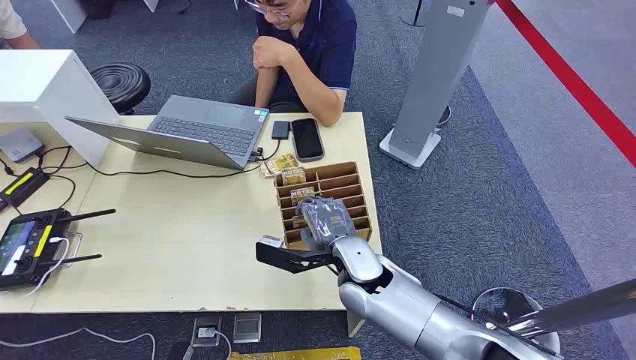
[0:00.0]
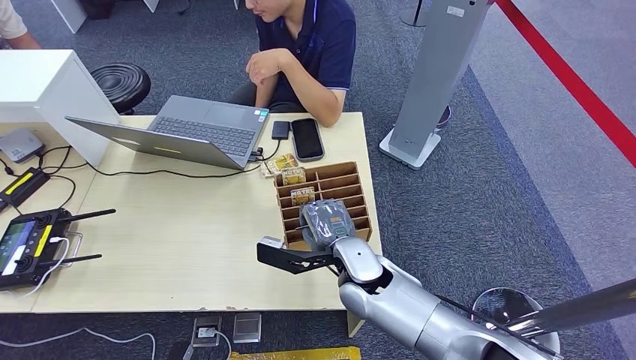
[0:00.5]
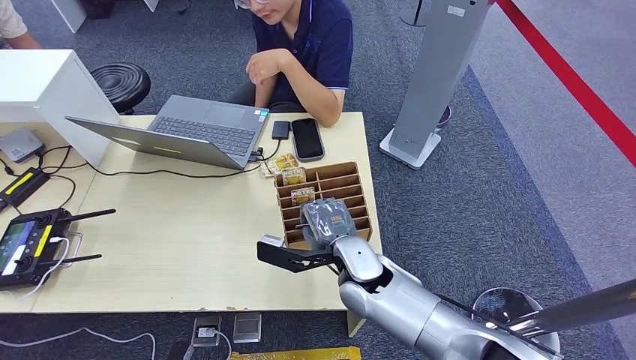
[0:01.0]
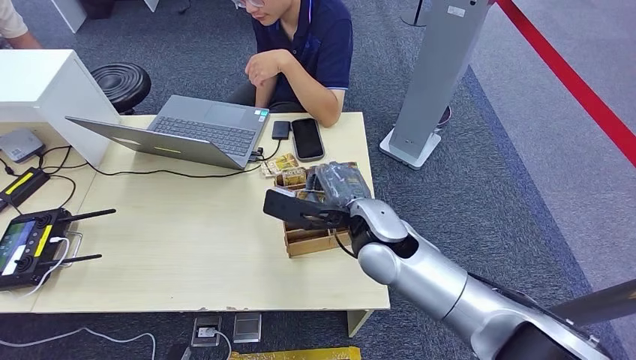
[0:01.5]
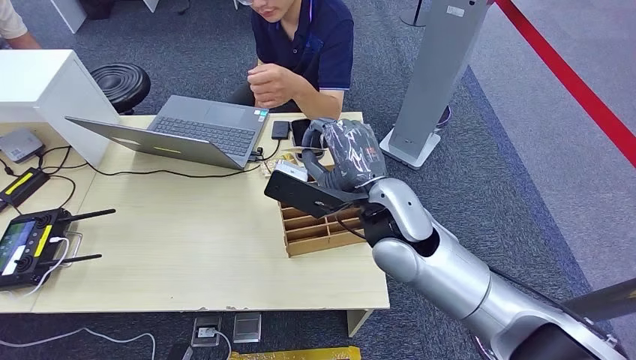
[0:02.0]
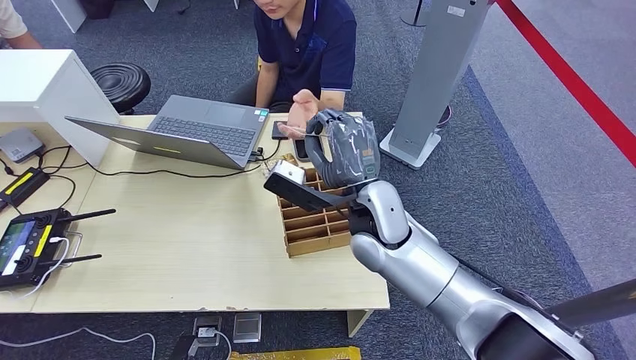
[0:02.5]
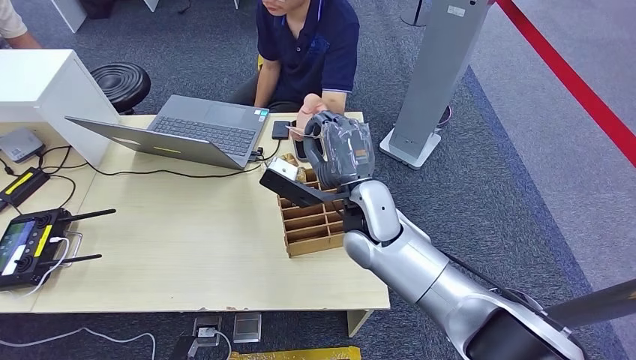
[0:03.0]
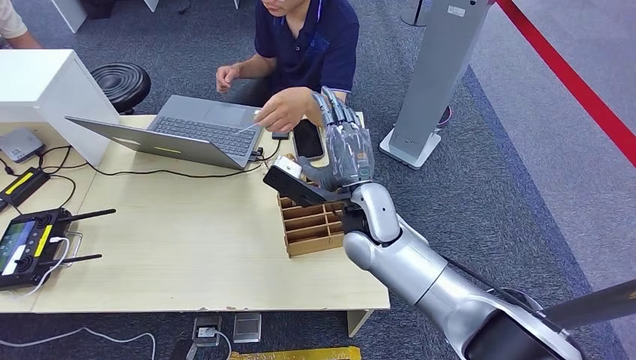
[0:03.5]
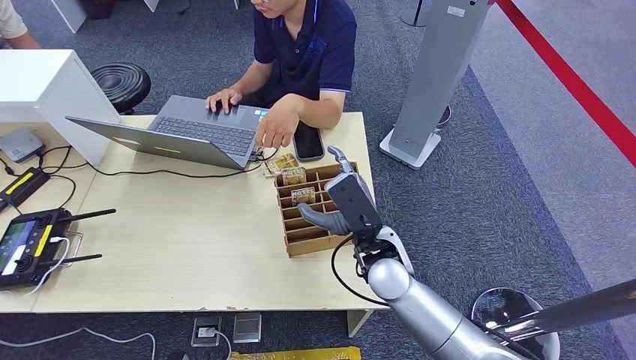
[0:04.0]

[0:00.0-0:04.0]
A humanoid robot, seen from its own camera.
Task of the whole recording: Pick up the card and hand it over to the target person.
Step, 0:00.0 to 0:01.5: Pick up the key card from the card box.
Step, 0:02.0 to 0:04.0: Hand the key card to the target.
0:02.0 to 0:04.0: The right hand goes roughly 15 cm downward, backward and to the right.

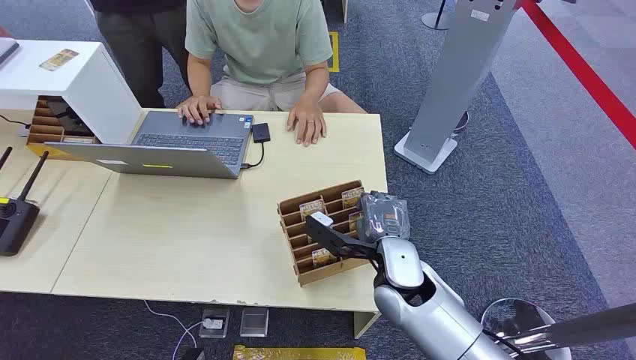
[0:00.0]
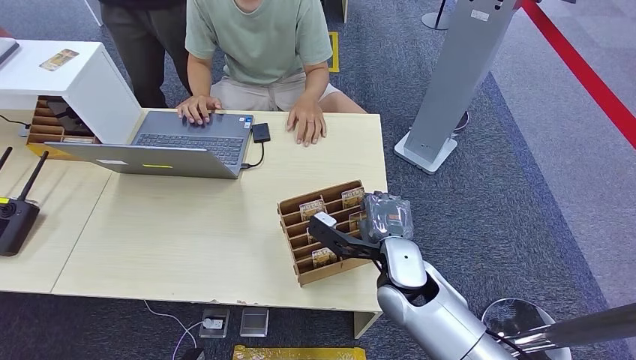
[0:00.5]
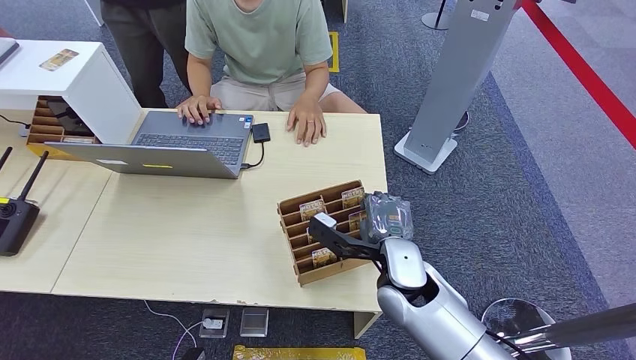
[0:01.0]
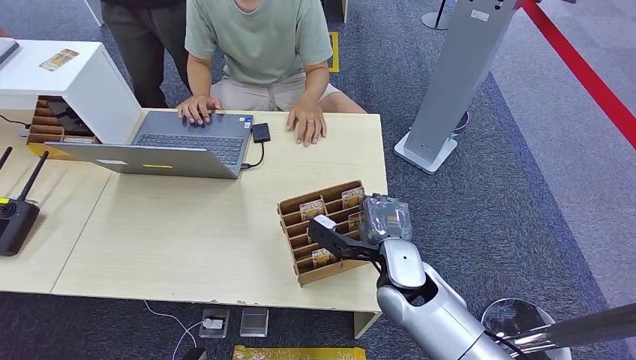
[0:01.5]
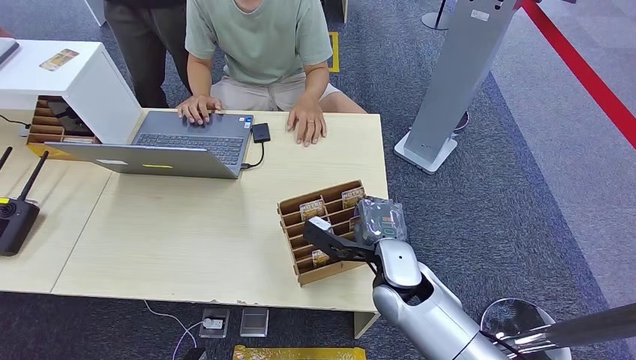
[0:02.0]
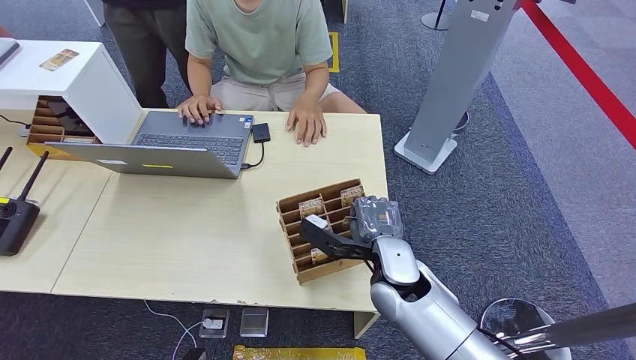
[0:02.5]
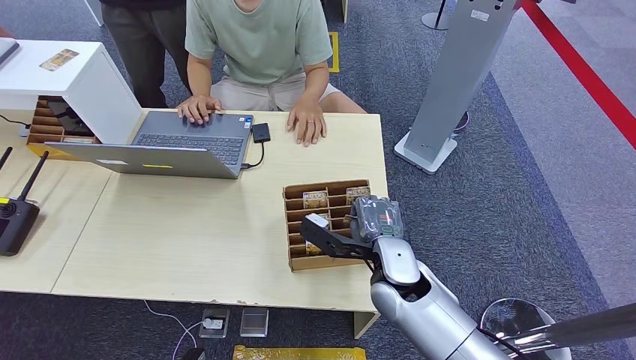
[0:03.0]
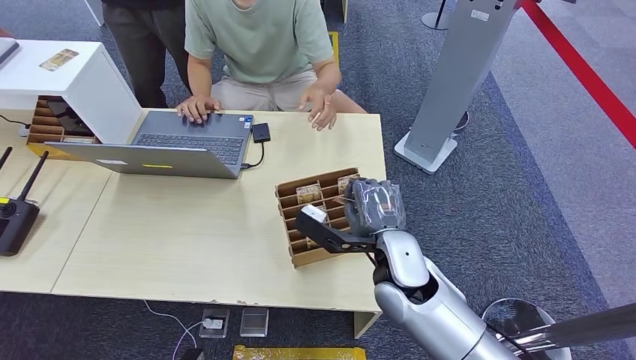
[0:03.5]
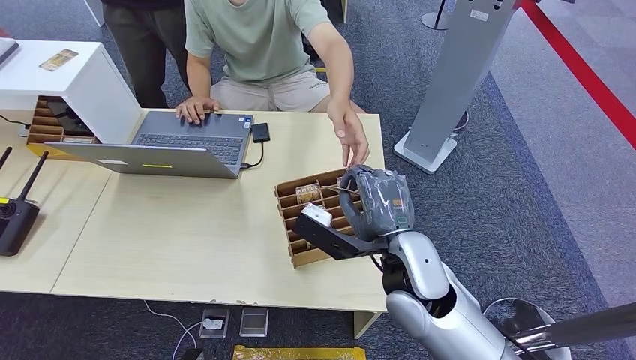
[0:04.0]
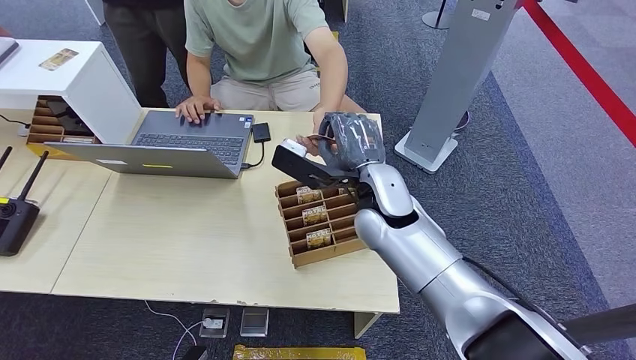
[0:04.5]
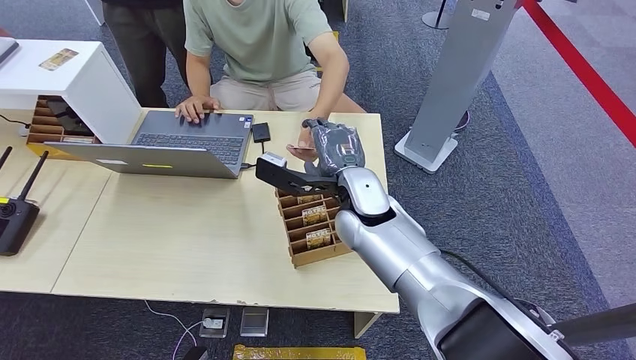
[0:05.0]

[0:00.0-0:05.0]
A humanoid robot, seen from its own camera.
Task of the whole recording: Pick up the card and hand it over to the target person.
Step, 0:00.0 to 0:03.5: Pick up the key card from the card box.
Step, 0:04.5 to 0:05.0: Hand the key card to the target.
0:02.5 to 0:05.0: The right hand moves upward, forward and to the left, approximately 15 cm.
